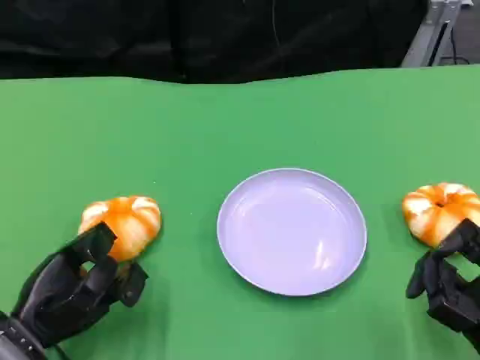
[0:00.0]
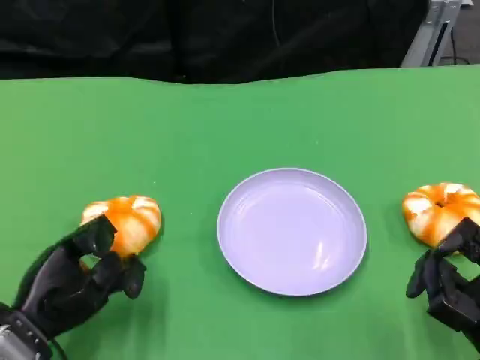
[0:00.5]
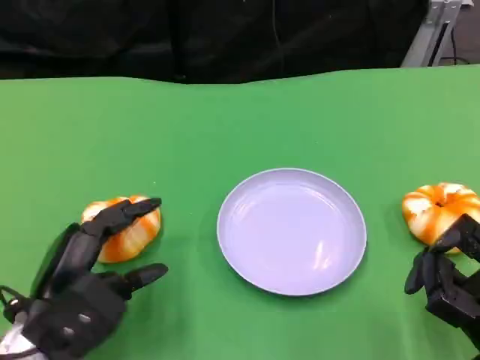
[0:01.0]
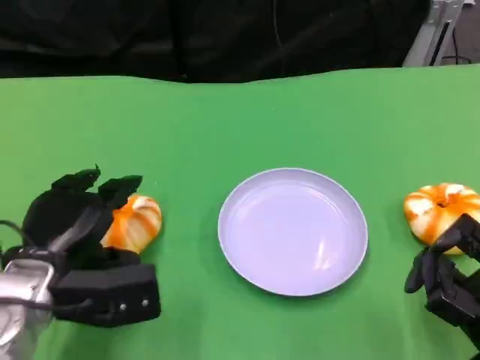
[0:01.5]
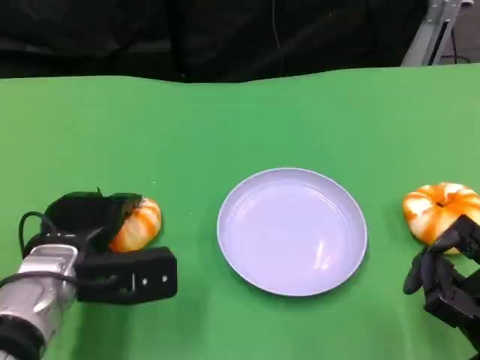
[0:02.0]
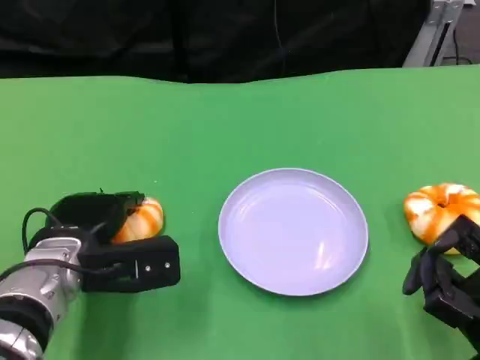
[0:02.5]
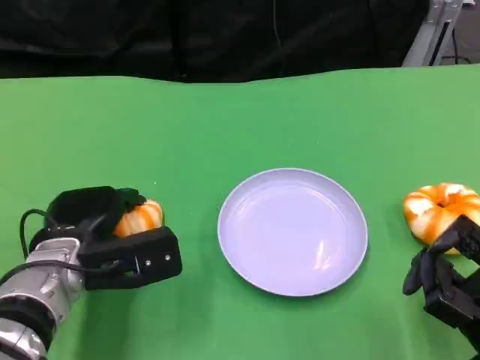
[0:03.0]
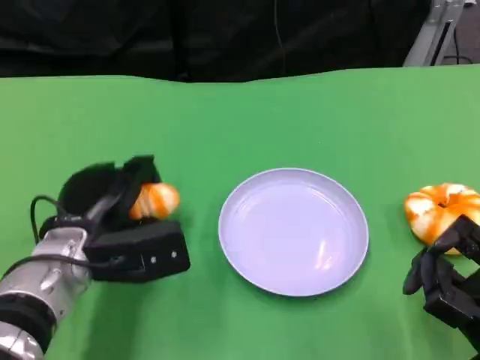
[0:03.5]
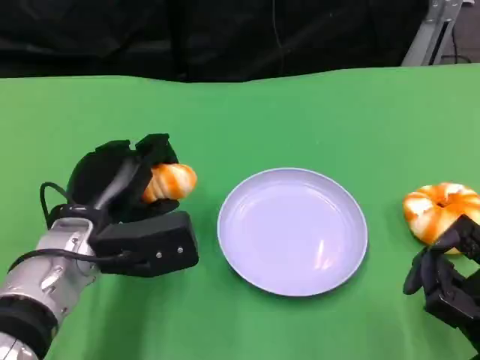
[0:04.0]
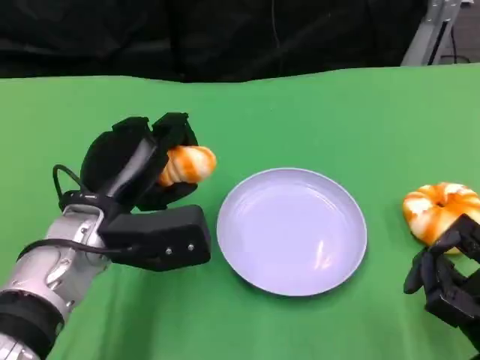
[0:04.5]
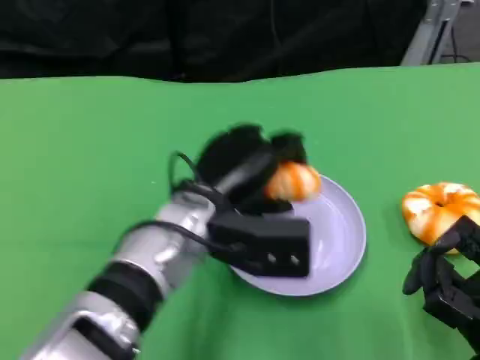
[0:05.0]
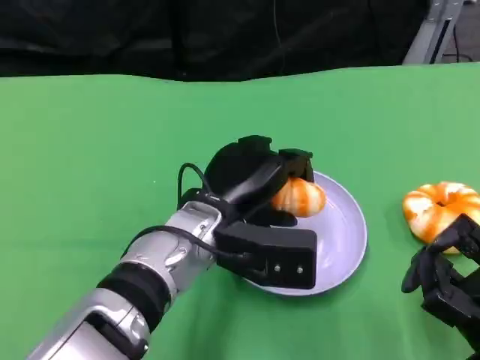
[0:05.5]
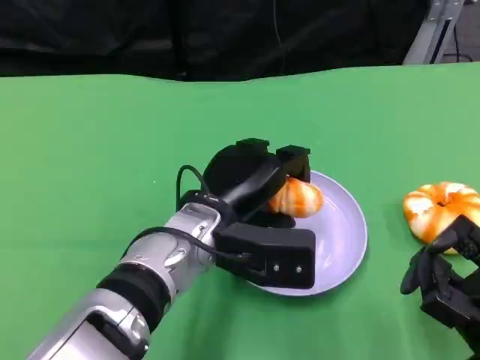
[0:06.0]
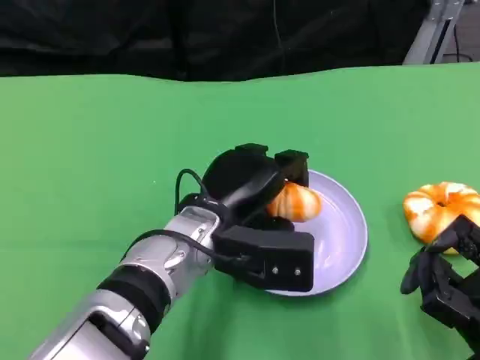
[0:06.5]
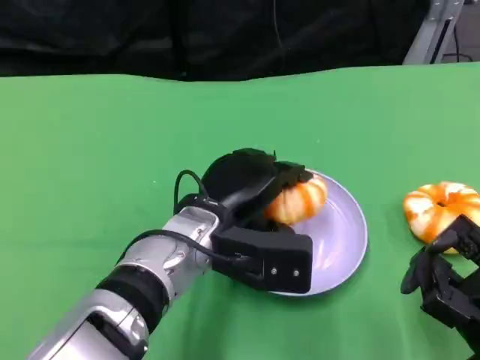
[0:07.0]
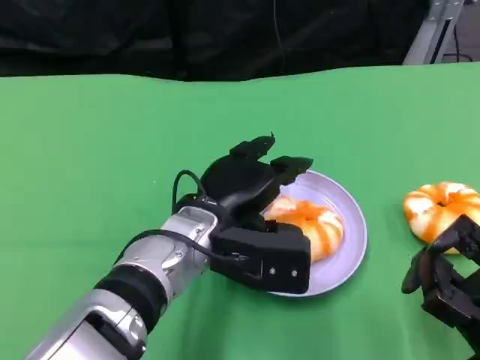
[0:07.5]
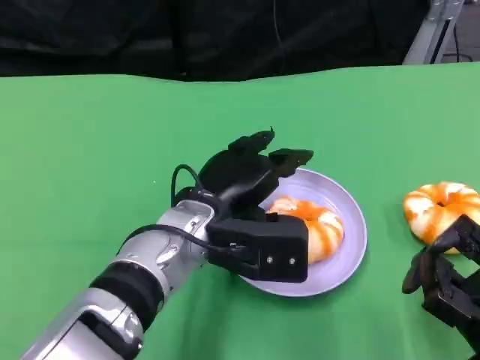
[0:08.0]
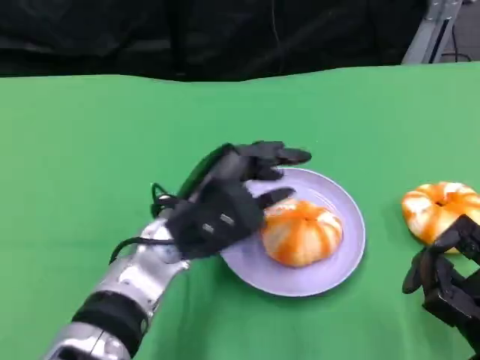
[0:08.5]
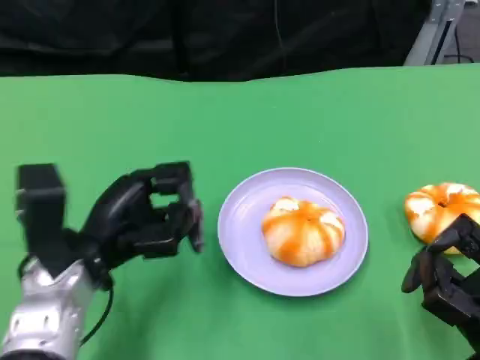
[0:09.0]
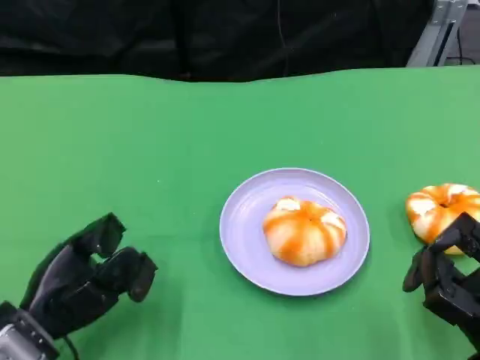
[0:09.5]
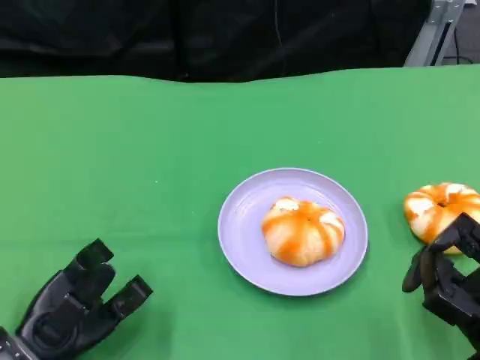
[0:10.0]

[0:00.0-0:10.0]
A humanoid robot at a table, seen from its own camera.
Task of the whole recording: Grasp the bread from the table and place it into the plate.
0:00.0 to 0:02.0: The left hand heads forward and to the right, covering approximately 10 cm.
0:04.0 to 0:06.0: The left hand moves to the right, roughly 10 cm.
0:06.0 to 0:08.0: The hands stay close to where they were, moving slightly.
0:08.0 to 0:10.0: The left hand heads to the left, downward and backward, covering about 25 cm.
